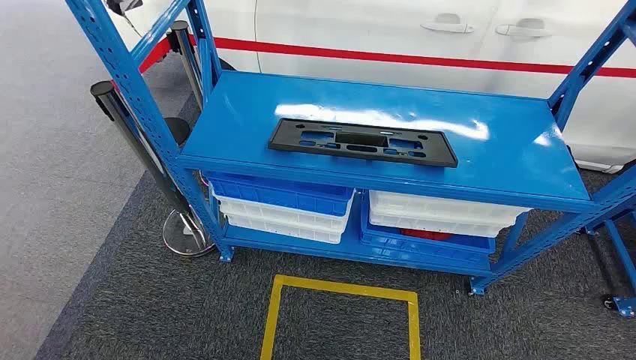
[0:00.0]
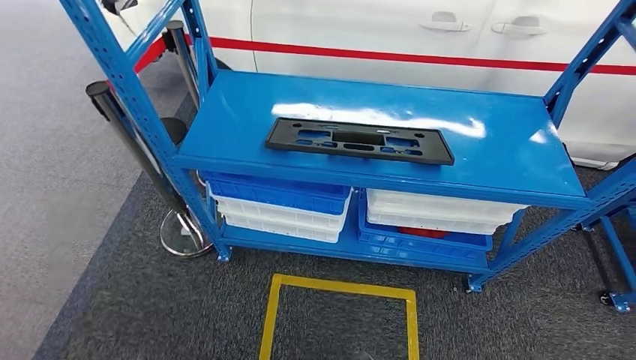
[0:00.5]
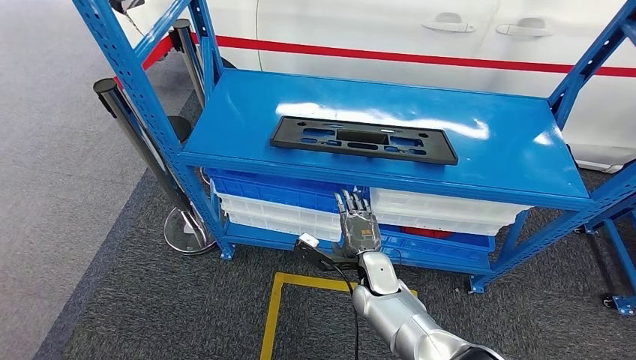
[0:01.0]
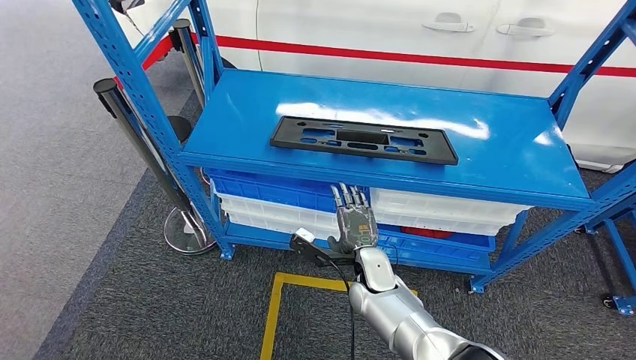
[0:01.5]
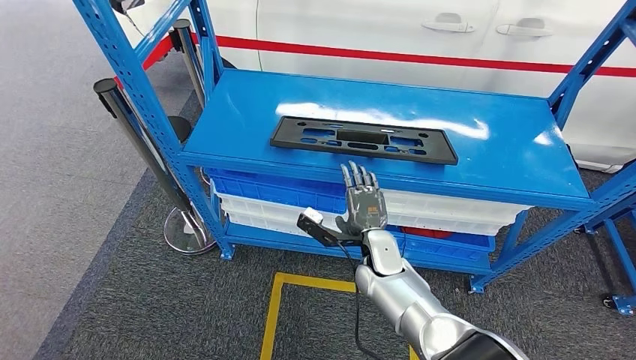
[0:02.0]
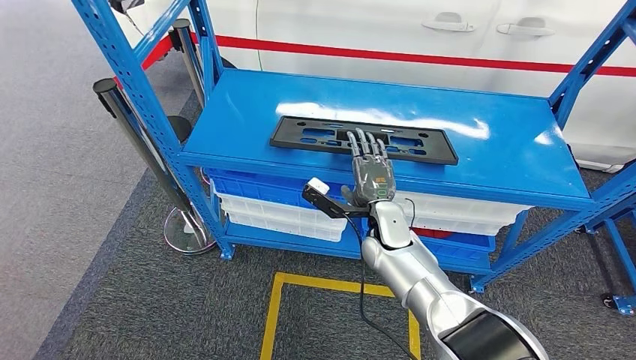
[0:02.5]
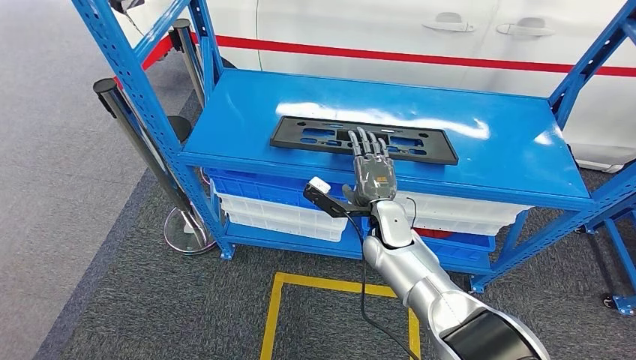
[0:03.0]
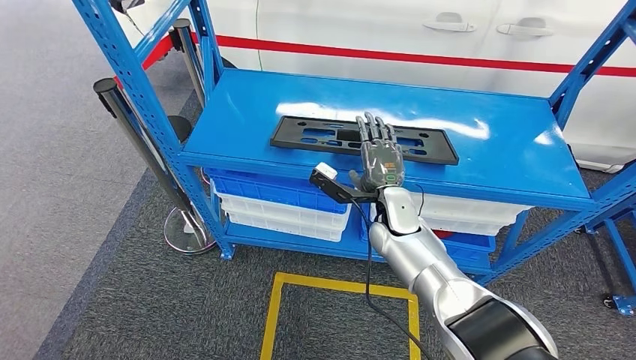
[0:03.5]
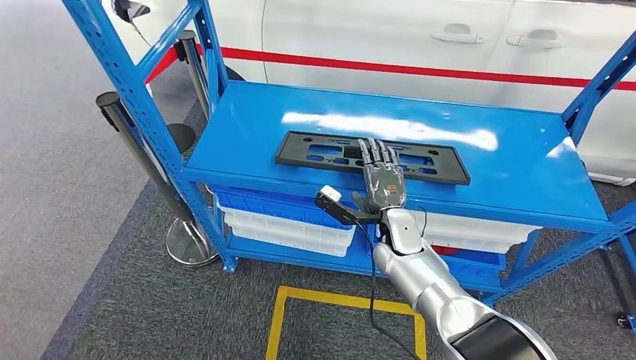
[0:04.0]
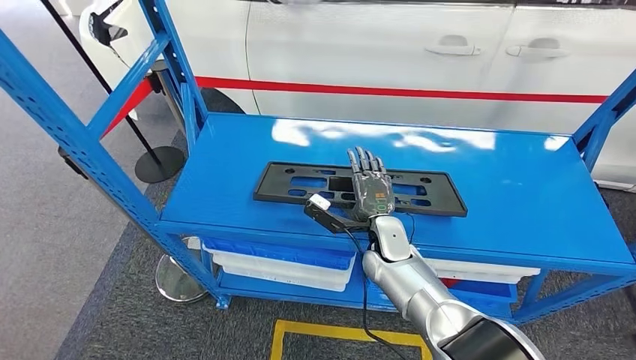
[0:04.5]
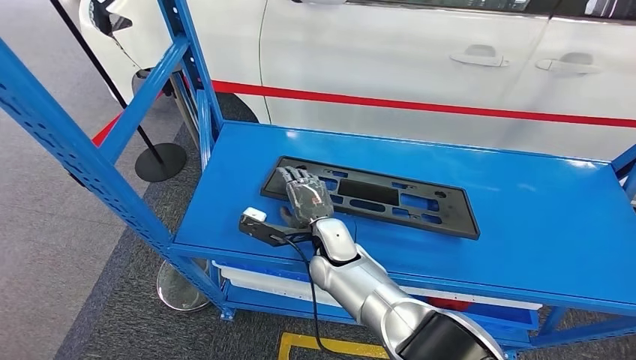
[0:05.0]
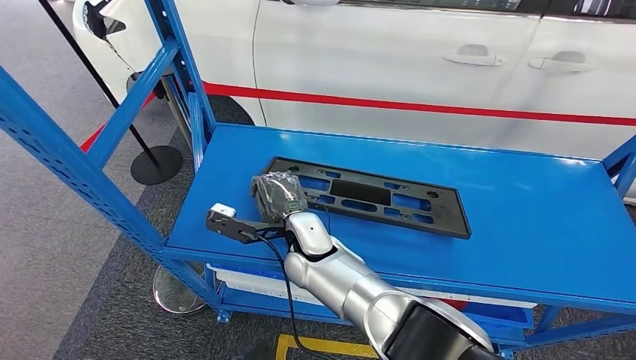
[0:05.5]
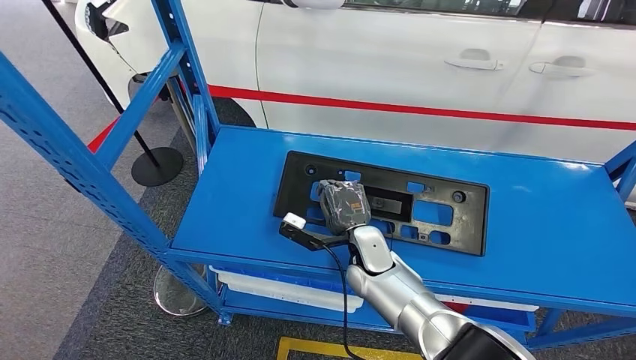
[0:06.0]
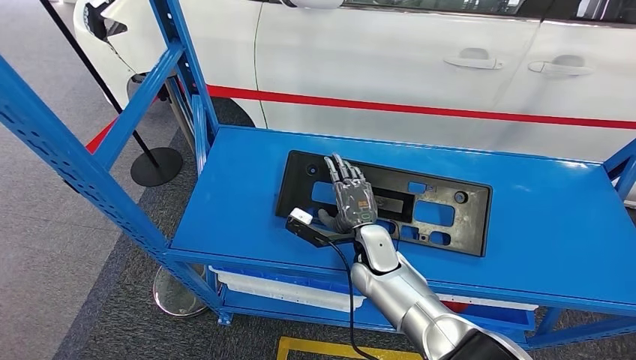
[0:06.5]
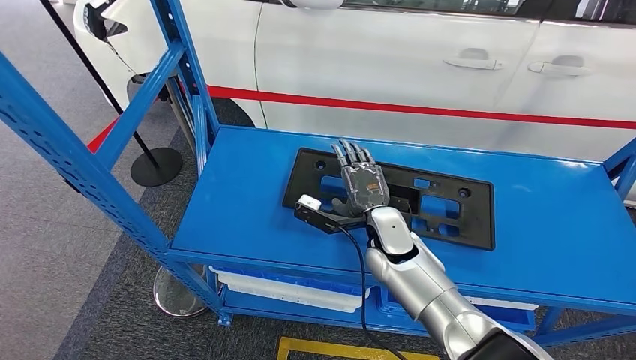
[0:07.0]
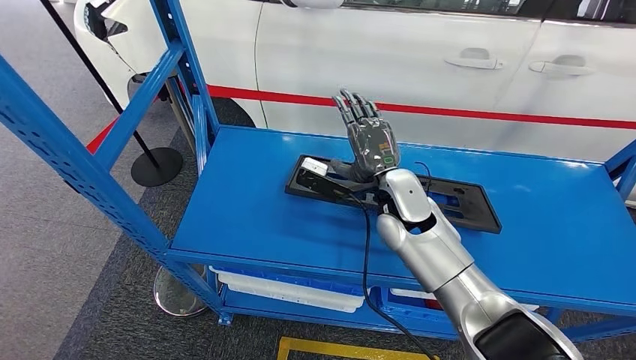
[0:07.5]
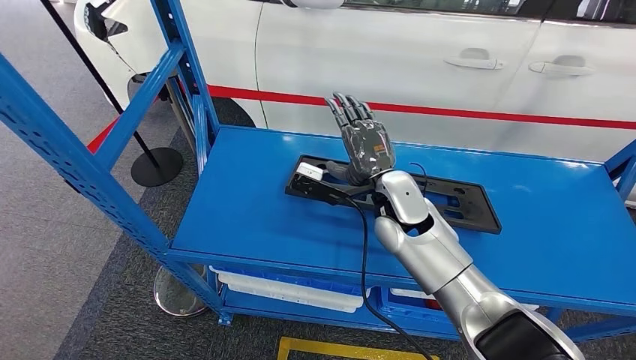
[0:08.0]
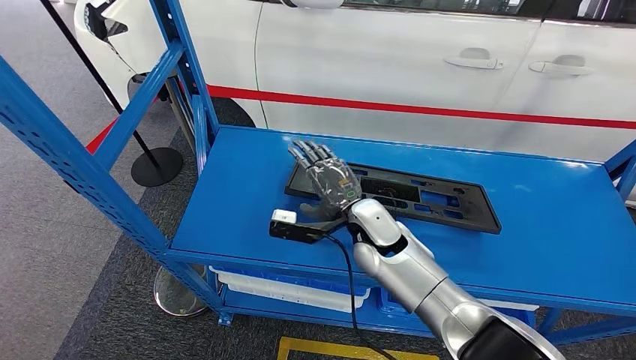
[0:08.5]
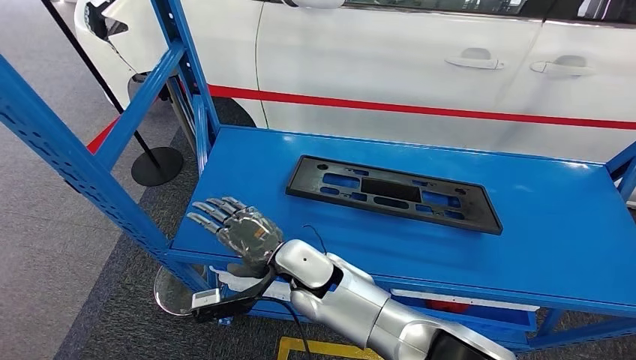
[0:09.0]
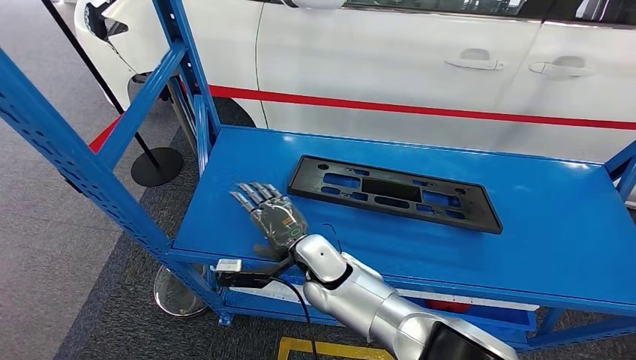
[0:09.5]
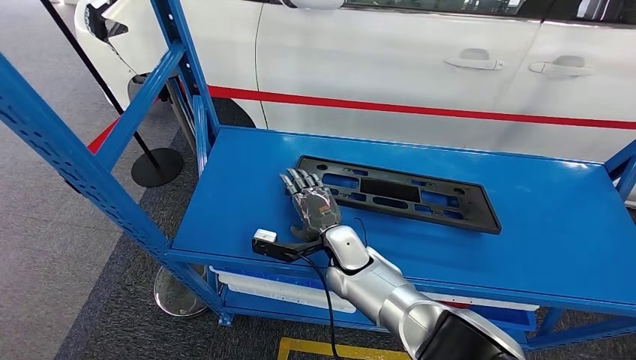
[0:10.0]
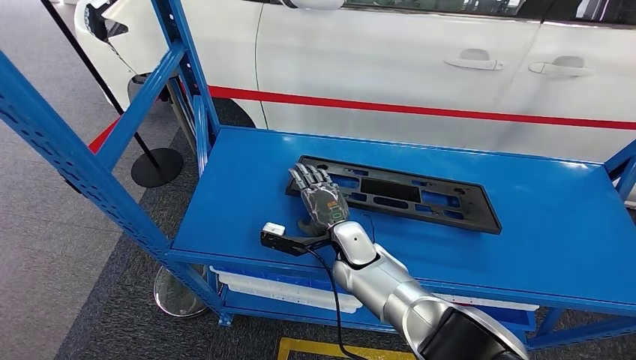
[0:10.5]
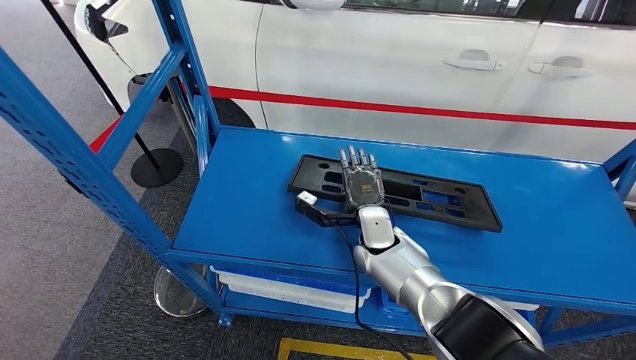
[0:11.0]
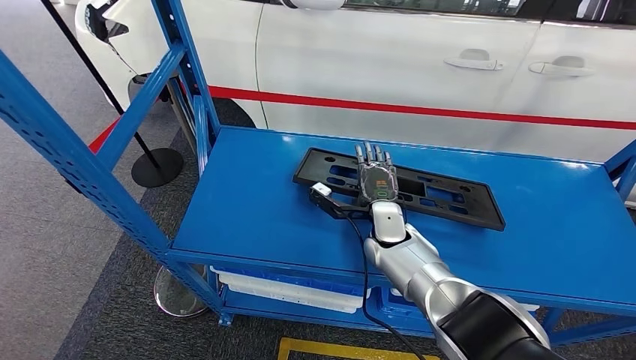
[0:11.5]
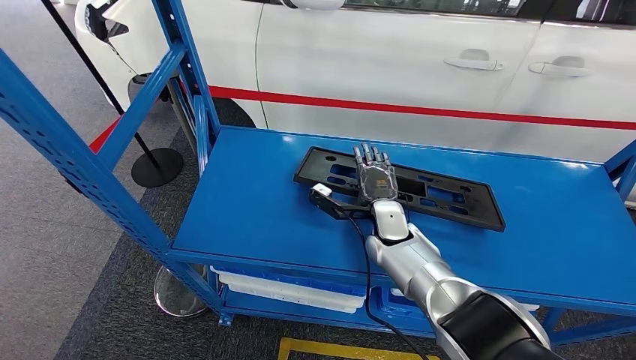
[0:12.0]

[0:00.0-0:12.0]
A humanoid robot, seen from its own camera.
0:06.0 to 0:08.0: The right hand is displaced upward by approximately 15 cm. The left hand changes place by approximately 5 cm.
0:08.0 to 0:10.0: The right hand travels downward and to the left by some 15 cm.
0:10.0 to 0:12.0: The right hand travels to the right by about 10 cm.

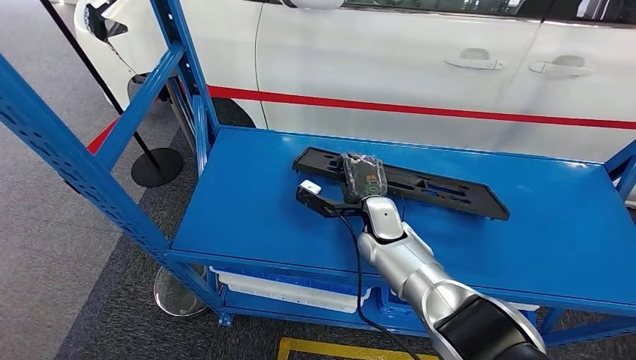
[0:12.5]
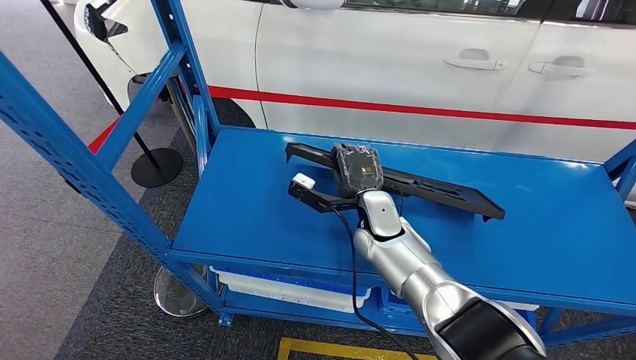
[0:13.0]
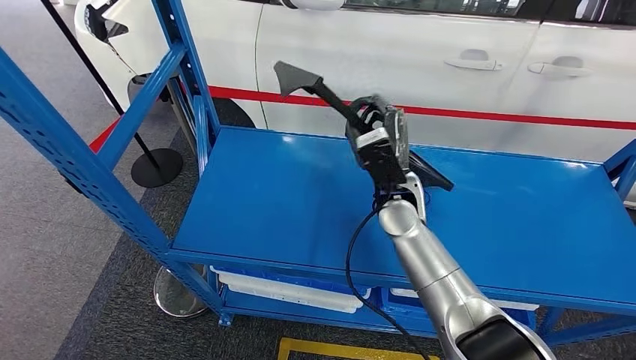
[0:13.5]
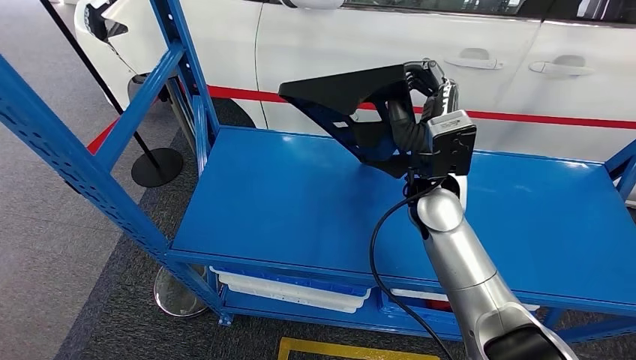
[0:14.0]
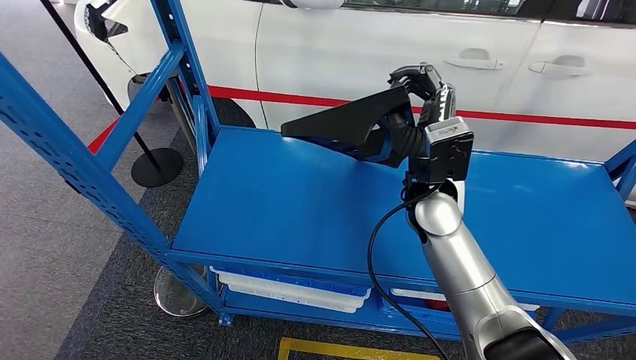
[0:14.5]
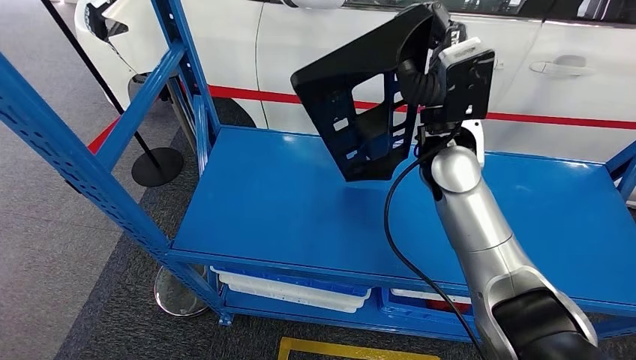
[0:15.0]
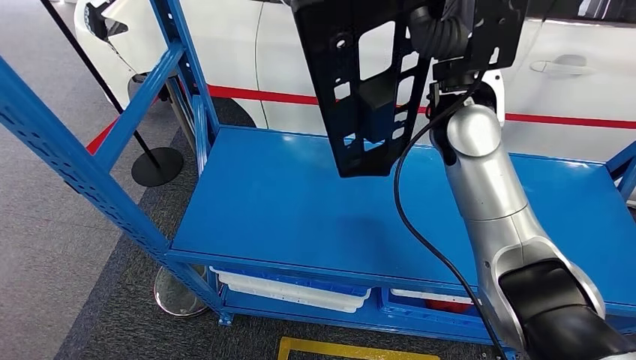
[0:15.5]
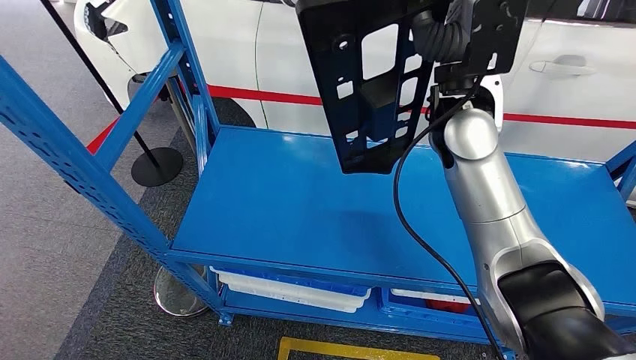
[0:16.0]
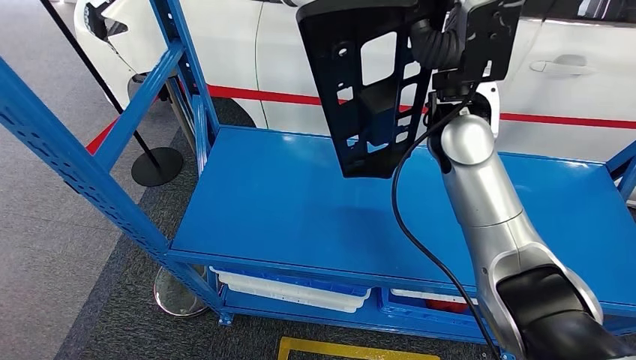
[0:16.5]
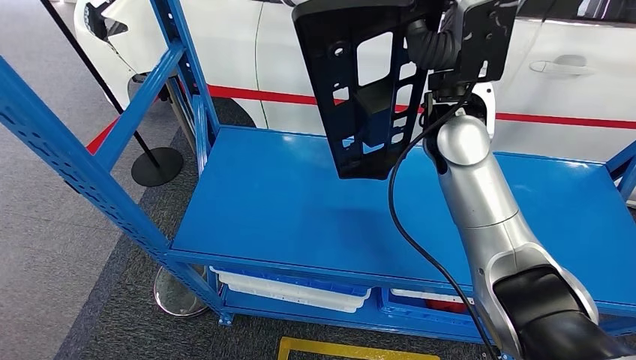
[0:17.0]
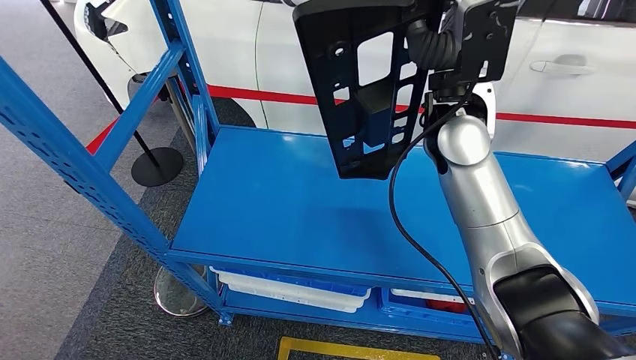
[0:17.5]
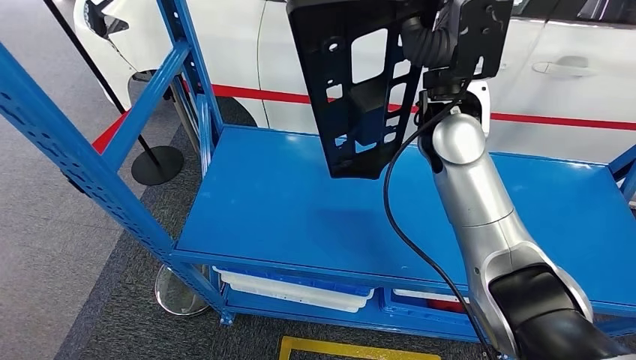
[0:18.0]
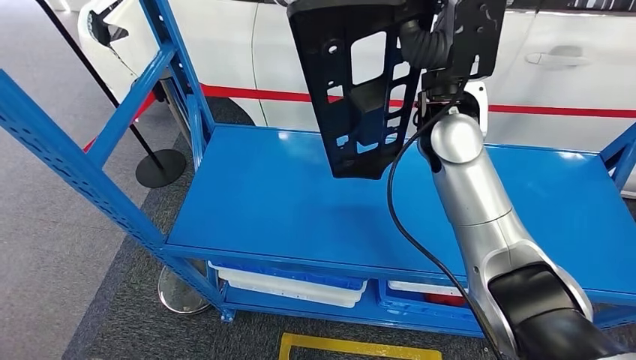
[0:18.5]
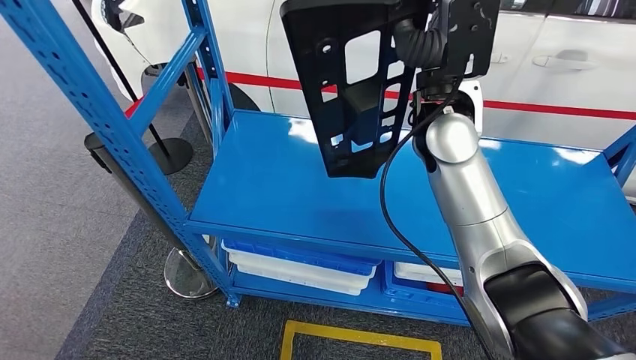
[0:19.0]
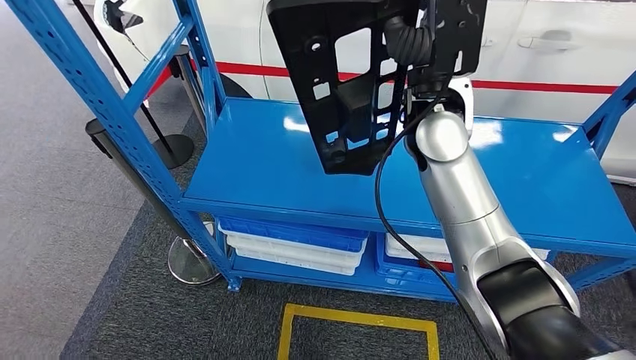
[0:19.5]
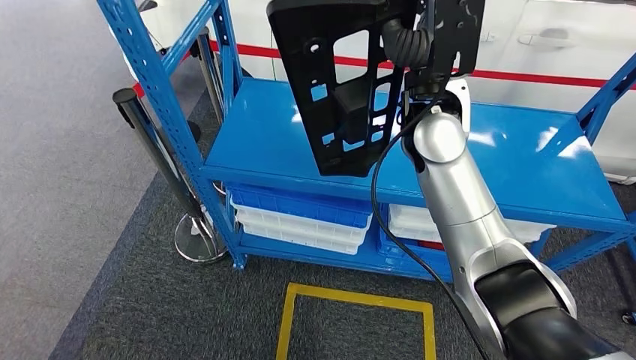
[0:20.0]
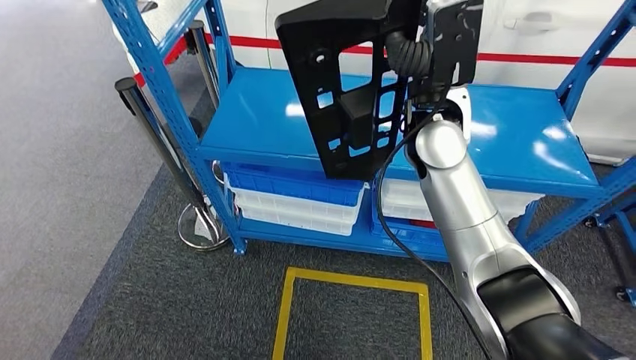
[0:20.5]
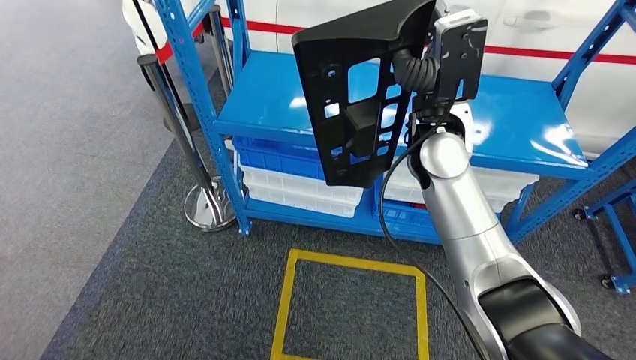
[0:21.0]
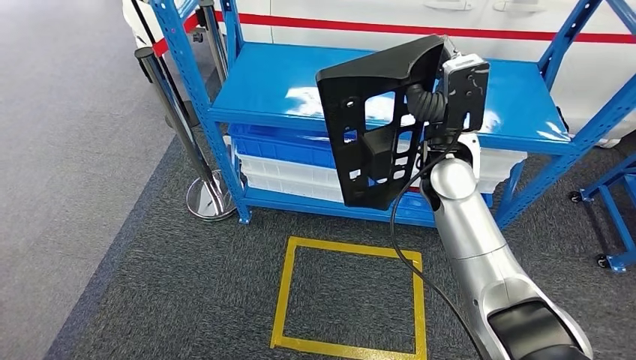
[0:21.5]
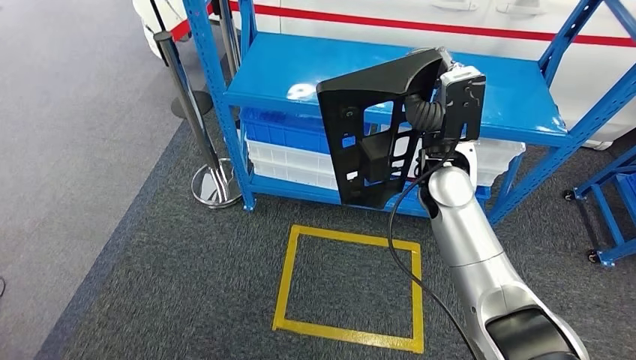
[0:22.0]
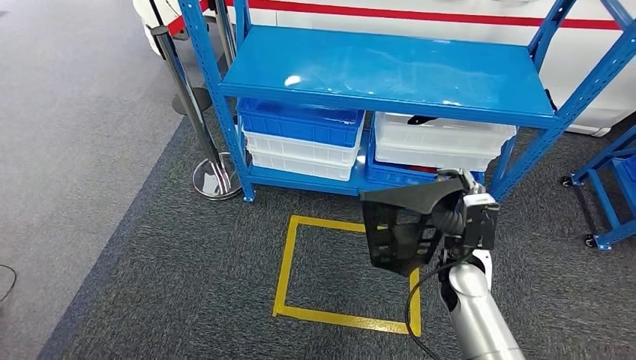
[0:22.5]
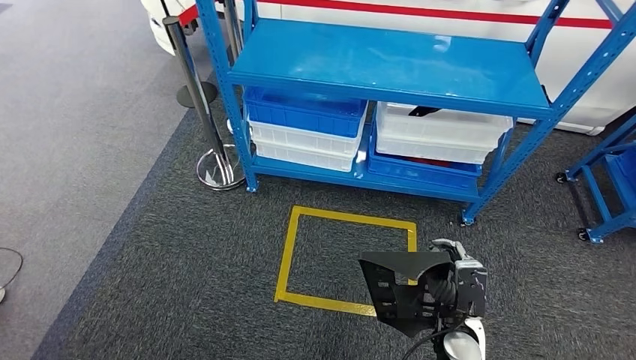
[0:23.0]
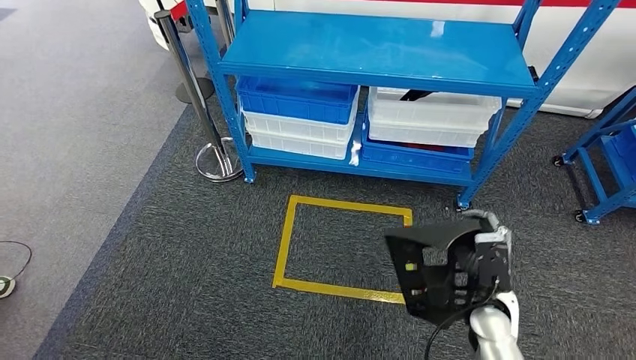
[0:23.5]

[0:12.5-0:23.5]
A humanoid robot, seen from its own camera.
Step, 0:12.5 to 0:14.5: Pick up the large parts from the shelf.
0:12.5 to 0:14.5: The right hand heads upward and to the right, covering roughly 15 cm.
0:16.0 to 0:18.0: The two hands keep their place.
